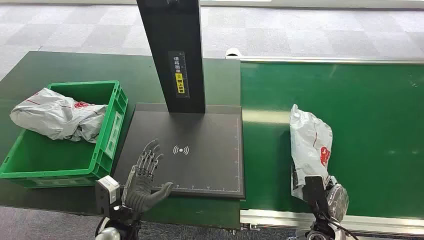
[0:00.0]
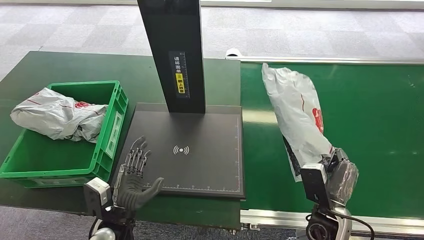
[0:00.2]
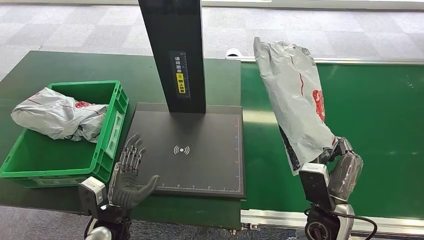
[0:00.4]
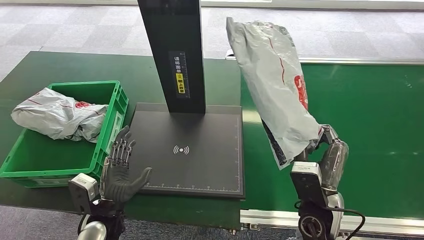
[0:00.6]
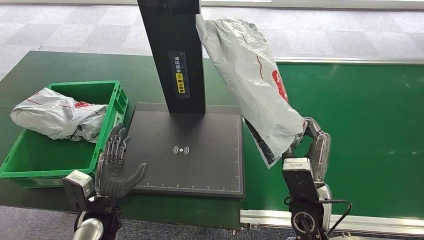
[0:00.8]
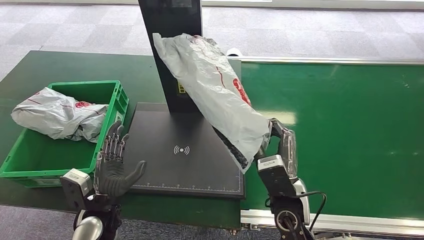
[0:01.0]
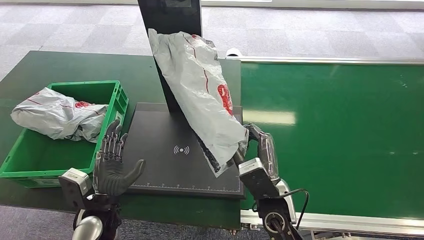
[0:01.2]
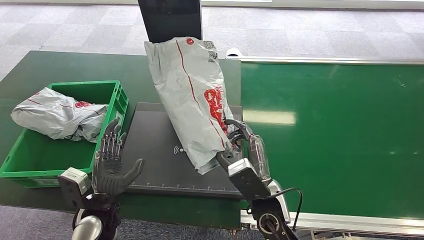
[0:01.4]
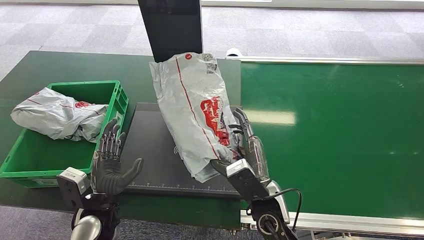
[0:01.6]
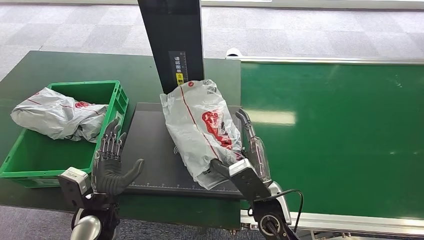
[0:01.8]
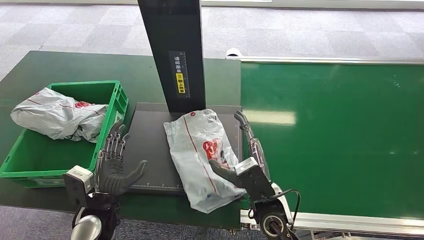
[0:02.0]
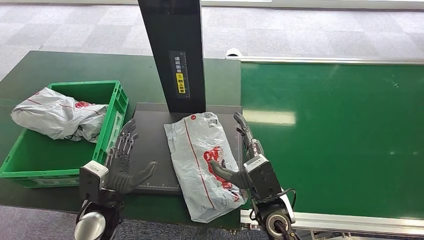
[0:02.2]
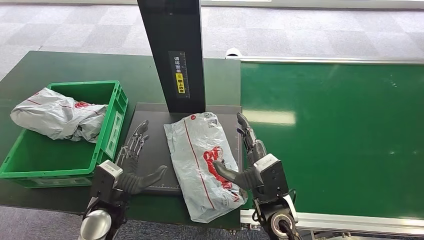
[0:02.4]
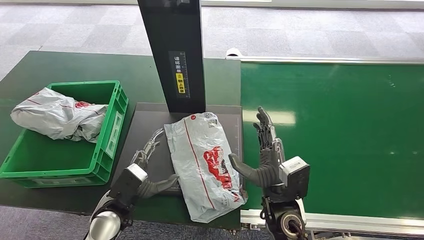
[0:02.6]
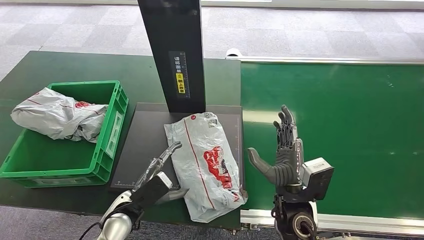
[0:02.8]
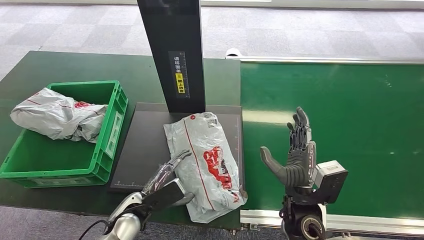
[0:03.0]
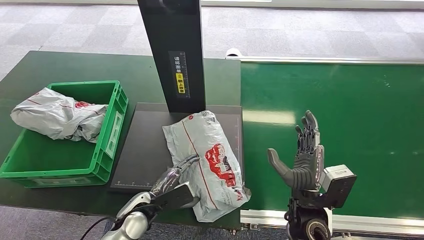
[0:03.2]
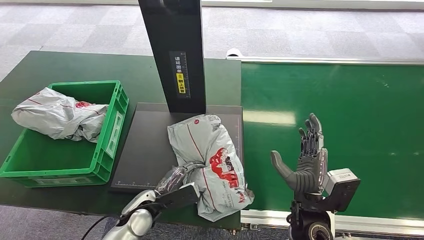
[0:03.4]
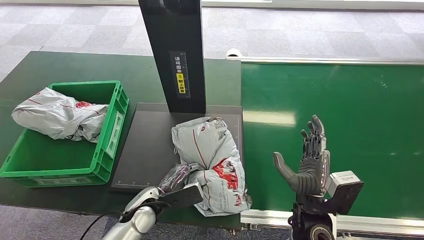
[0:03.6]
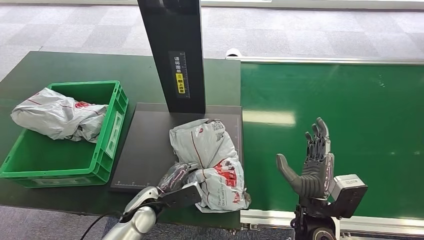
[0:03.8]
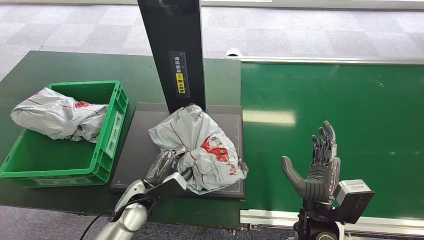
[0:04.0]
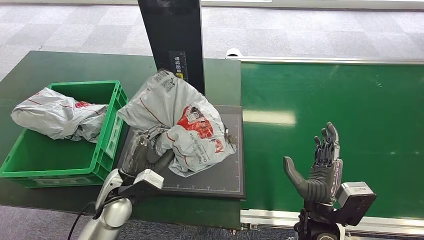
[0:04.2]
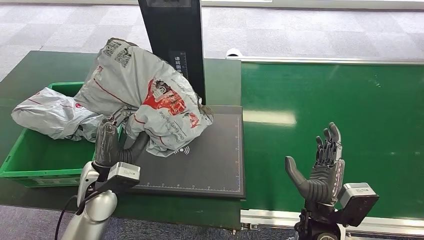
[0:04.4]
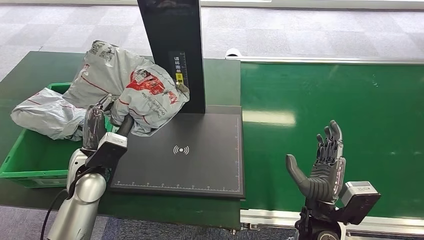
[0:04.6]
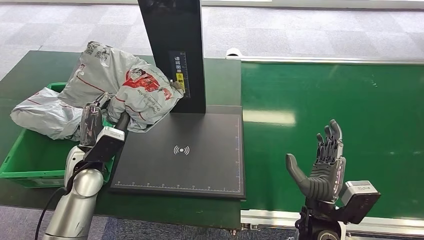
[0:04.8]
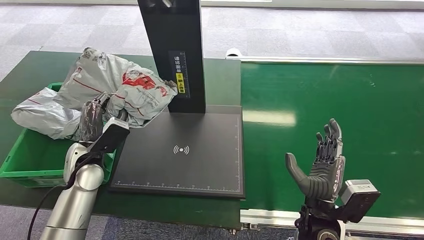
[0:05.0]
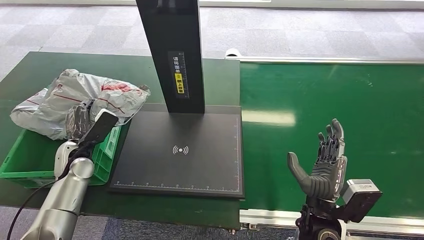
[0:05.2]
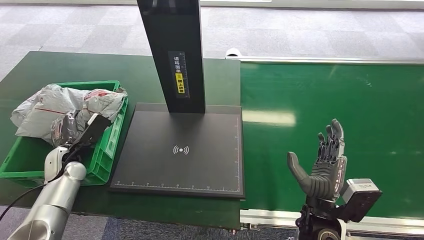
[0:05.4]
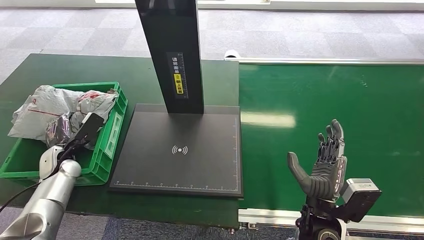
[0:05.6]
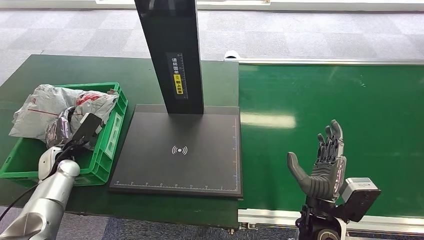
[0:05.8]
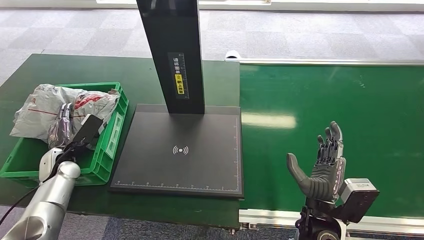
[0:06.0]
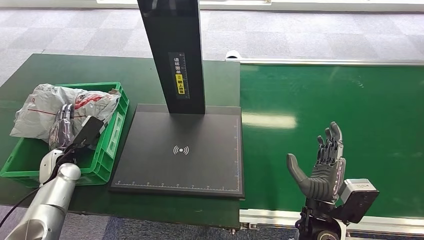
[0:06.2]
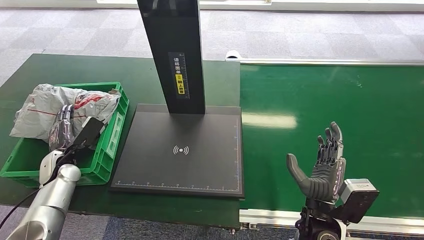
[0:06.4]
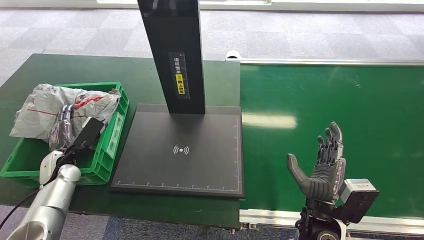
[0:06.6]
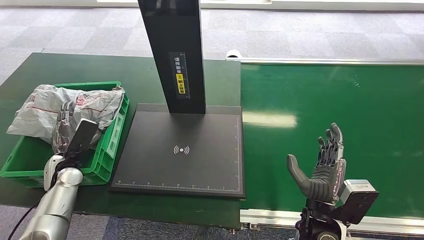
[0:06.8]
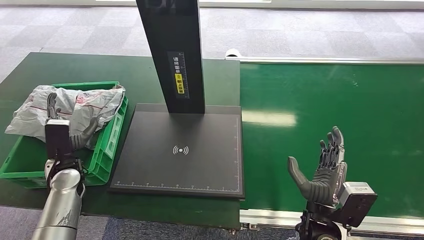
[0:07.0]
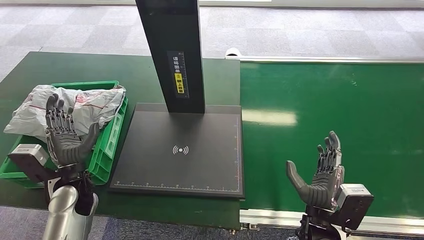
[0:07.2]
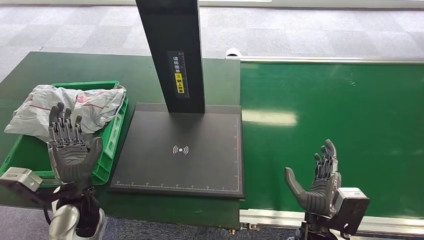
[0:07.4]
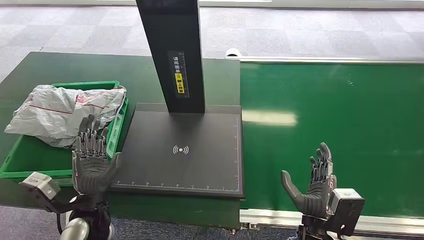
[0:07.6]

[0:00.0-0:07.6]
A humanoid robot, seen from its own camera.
Step, 0:00.0 to 0:00.8: Pick up the package from the conveyor belt.
Step, 0:01.0 to 0:03.2: Place the package onto the inbound machine.
Step, 0:03.4 to 0:05.2: Pick up the package from the inbound machine.
Step, 0:05.4 to 0:07.4: Place the package into the parcel locker.
0:01.6 to 0:03.0: The left hand changes place by about 5 cm. Meanwhile the right hand heads to the right, covering about 5 cm.
0:06.0 to 0:07.6: The left hand travels to the right and backward by approximately 25 cm.
